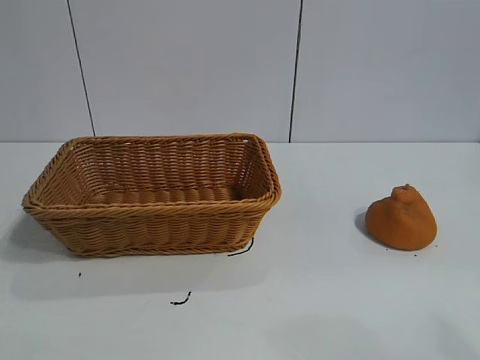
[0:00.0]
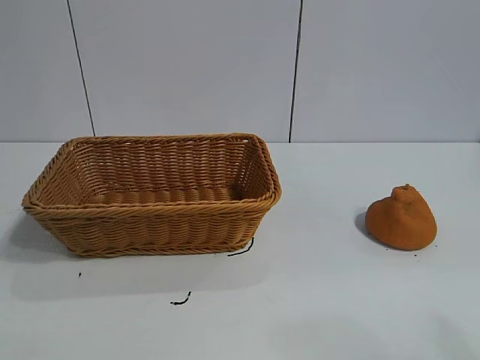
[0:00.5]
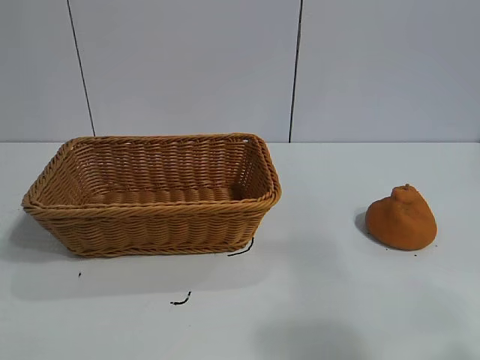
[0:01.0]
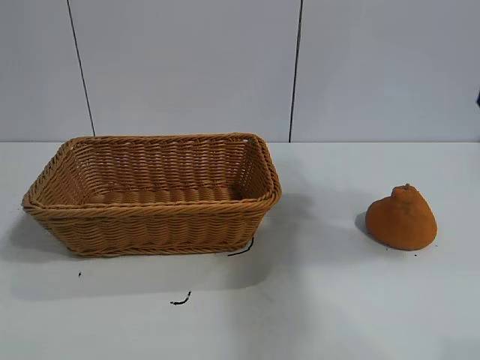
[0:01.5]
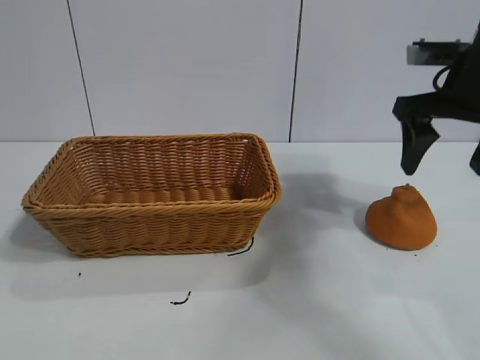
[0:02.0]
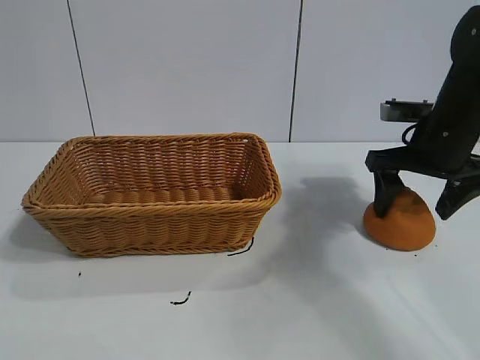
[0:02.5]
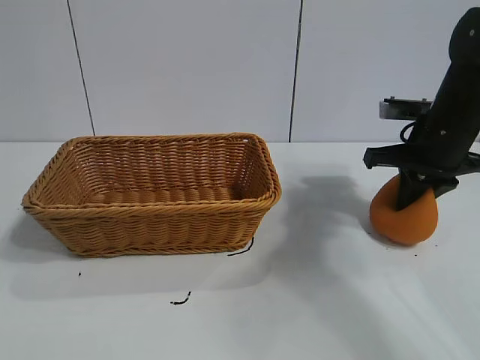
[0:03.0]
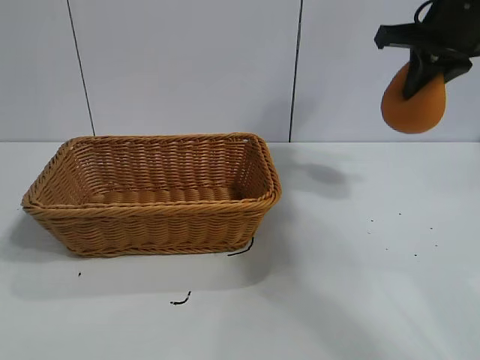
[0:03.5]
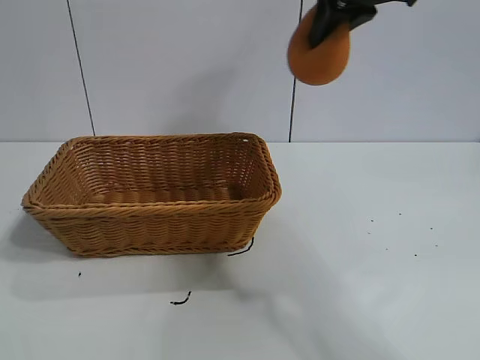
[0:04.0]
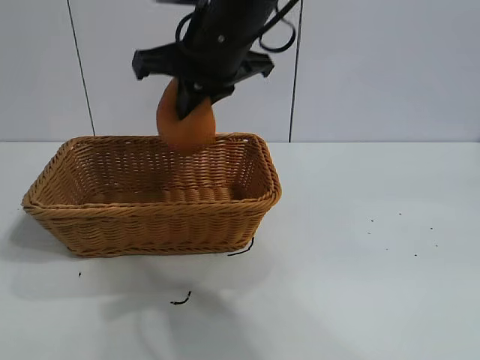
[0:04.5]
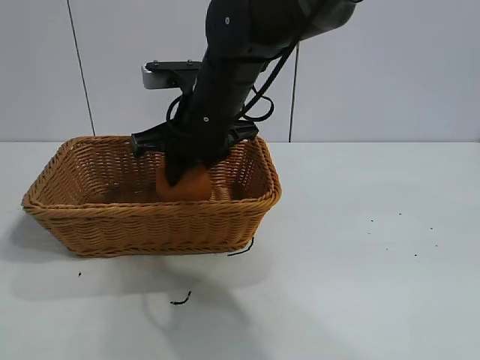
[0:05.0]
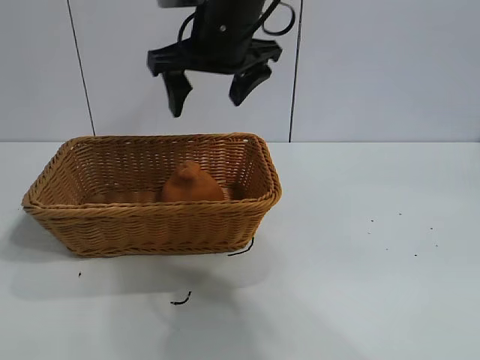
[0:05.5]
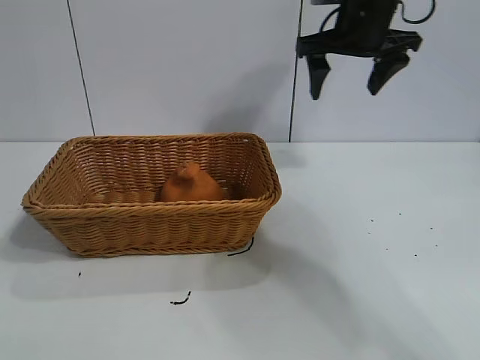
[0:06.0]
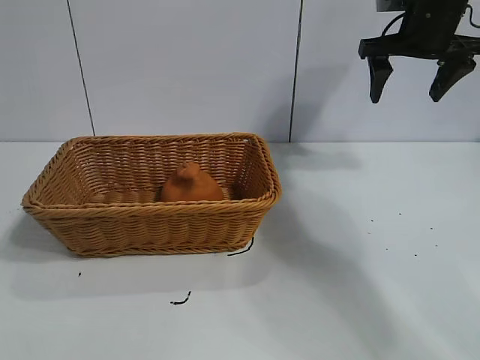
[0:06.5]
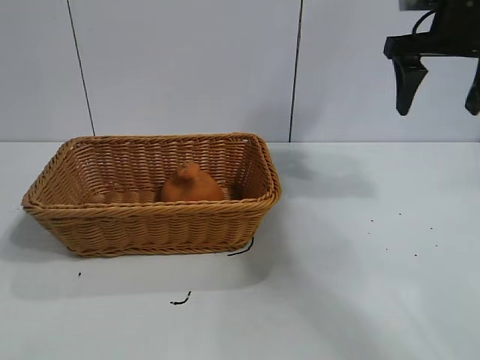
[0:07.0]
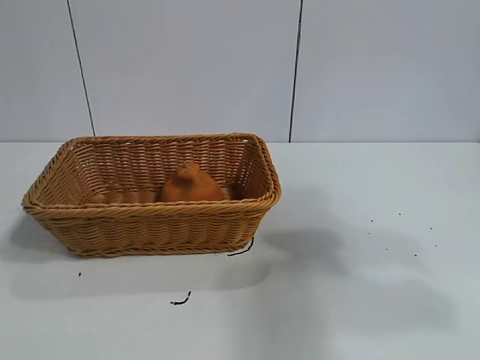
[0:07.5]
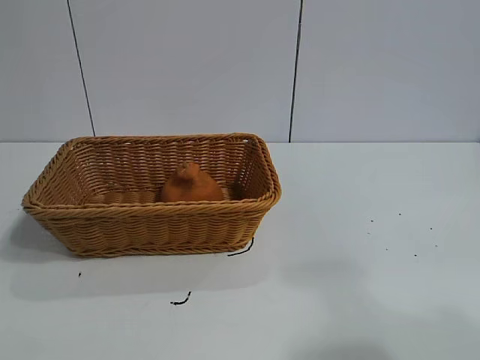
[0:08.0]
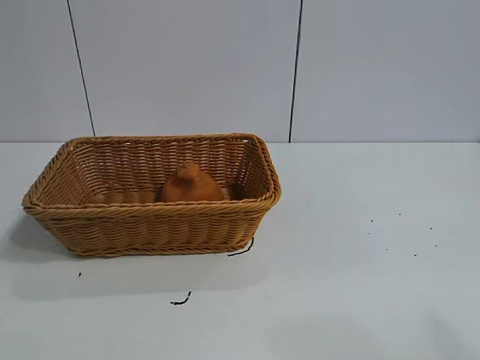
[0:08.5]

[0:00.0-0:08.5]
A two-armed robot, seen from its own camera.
Task of the whole recording: pick up the orange and put it into the basket.
Step, 0:01.0 to 0:03.0: Grasp the orange with right gripper.
Step, 0:03.5 to 0:05.0: Place the orange in the basket with right gripper.

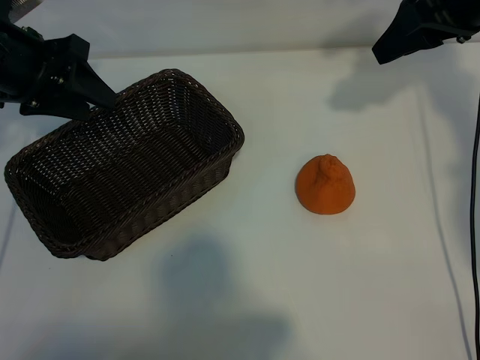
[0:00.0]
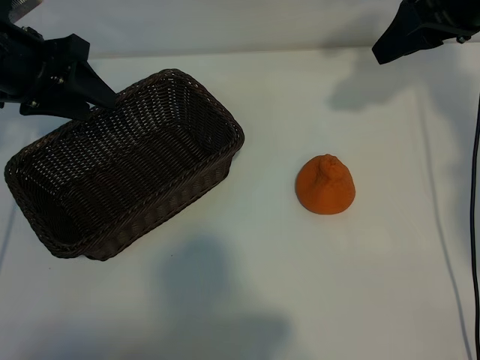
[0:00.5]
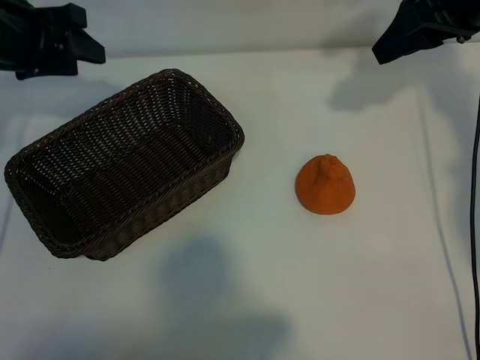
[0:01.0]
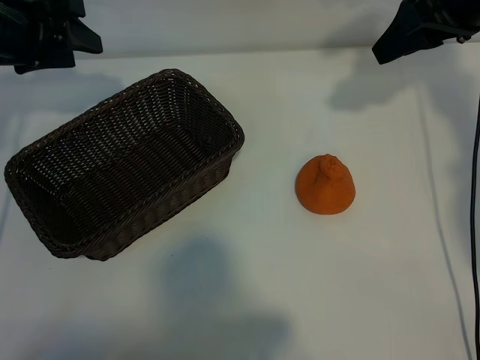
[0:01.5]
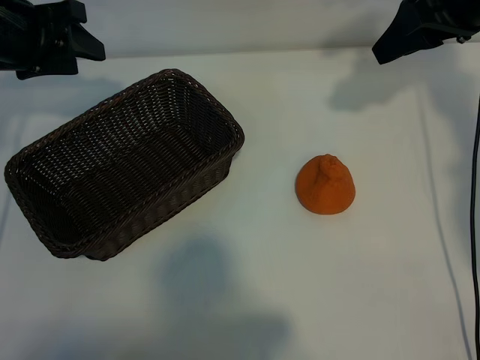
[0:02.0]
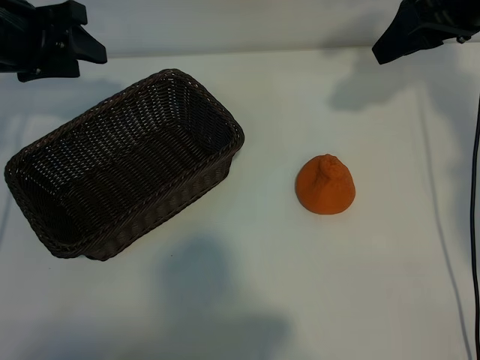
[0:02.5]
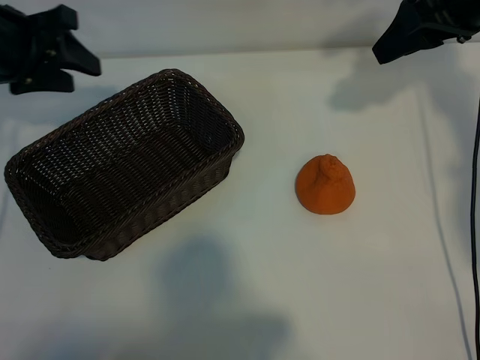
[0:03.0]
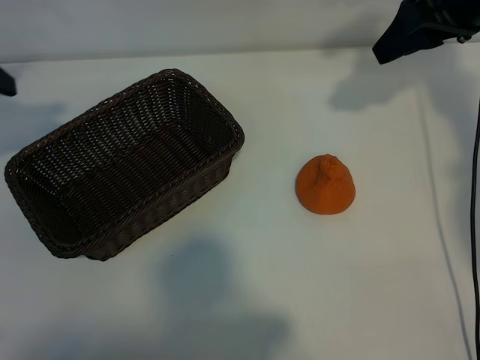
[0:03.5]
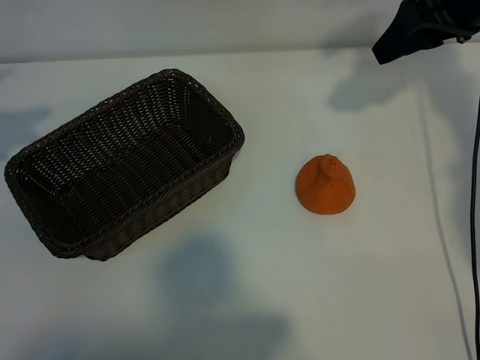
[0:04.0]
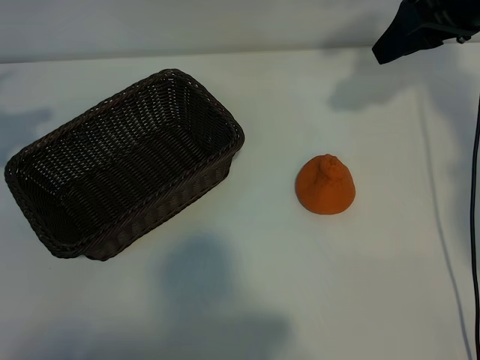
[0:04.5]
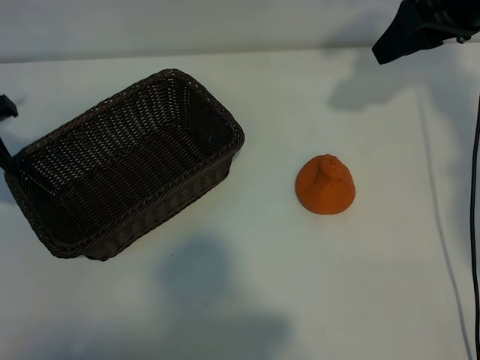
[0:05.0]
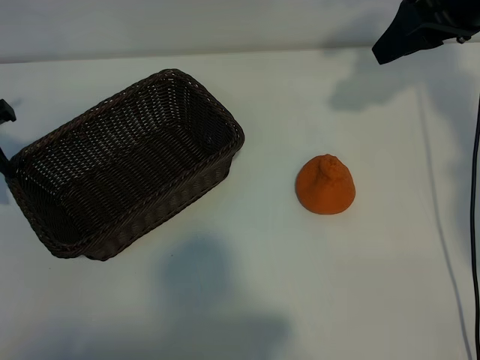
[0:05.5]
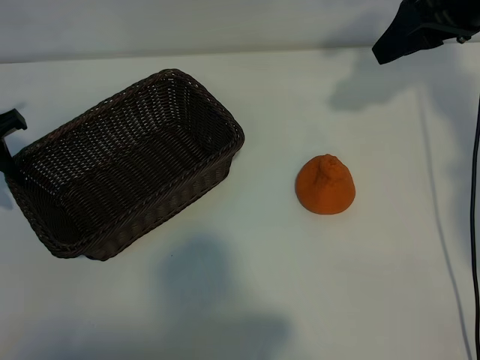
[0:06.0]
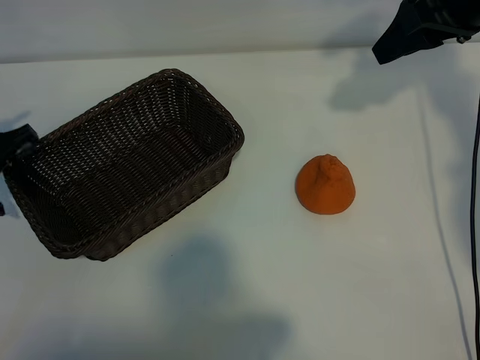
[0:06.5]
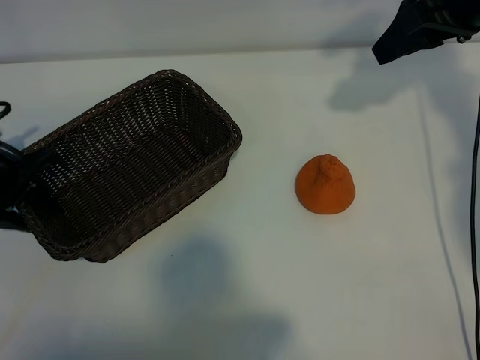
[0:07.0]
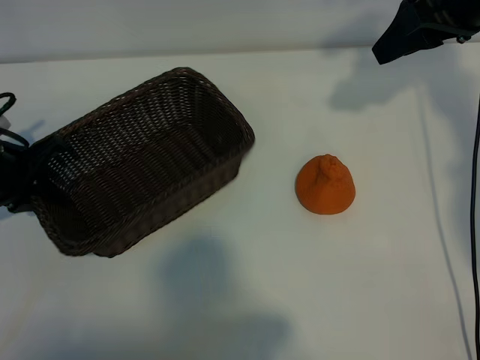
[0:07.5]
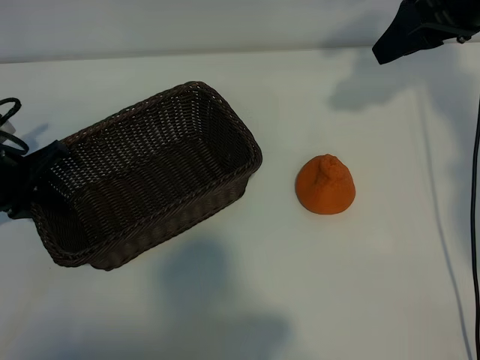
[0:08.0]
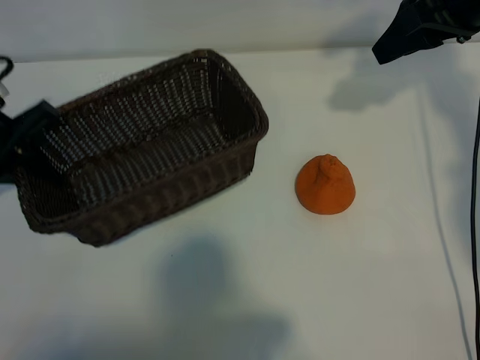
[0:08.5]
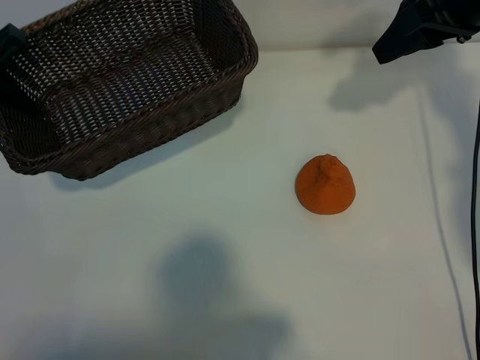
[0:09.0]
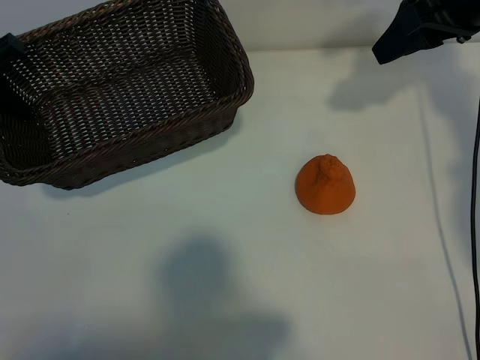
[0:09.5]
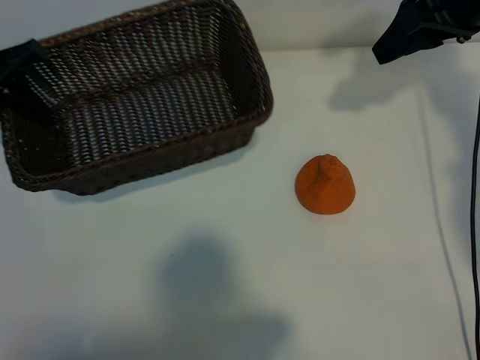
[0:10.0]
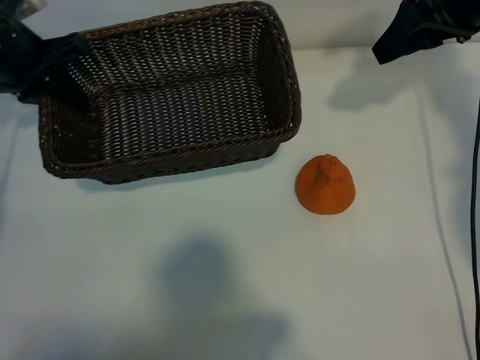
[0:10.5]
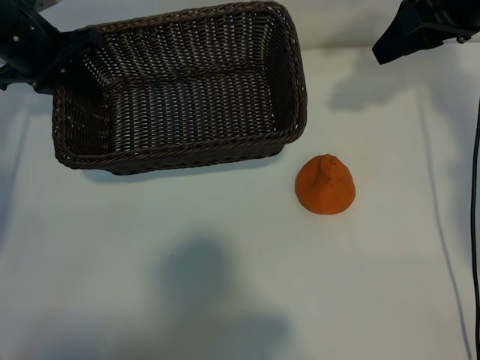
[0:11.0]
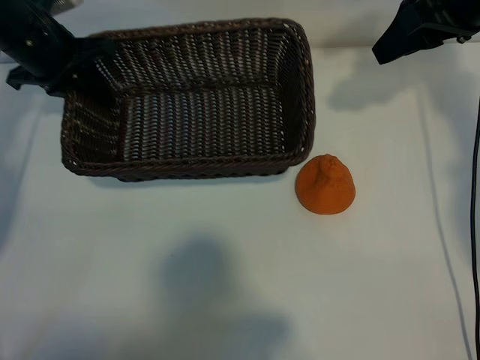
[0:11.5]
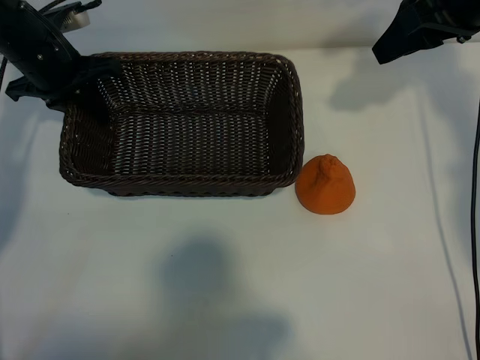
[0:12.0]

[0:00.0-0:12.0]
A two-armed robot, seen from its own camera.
Task of the whole recording: pick up the orange and put it into the basket.
Step, 0:01.0 to 0:07.5: Grasp the basket with left gripper.

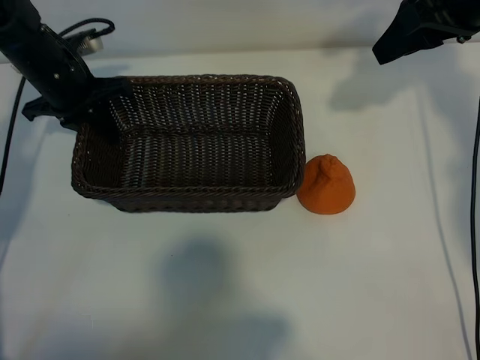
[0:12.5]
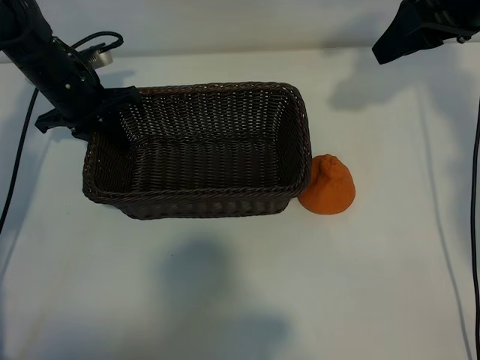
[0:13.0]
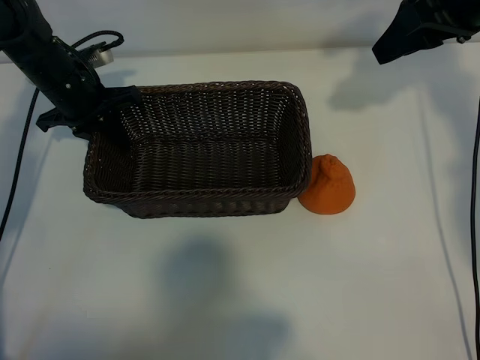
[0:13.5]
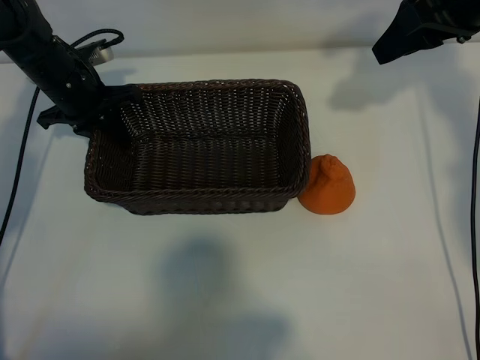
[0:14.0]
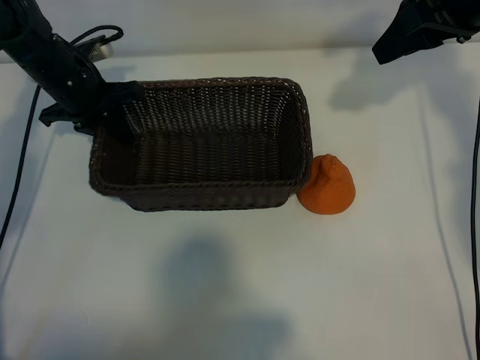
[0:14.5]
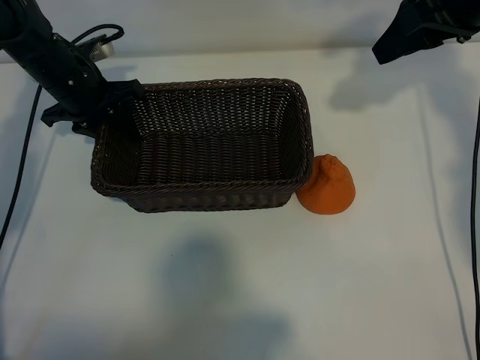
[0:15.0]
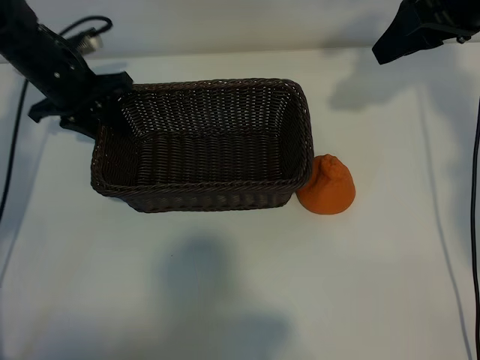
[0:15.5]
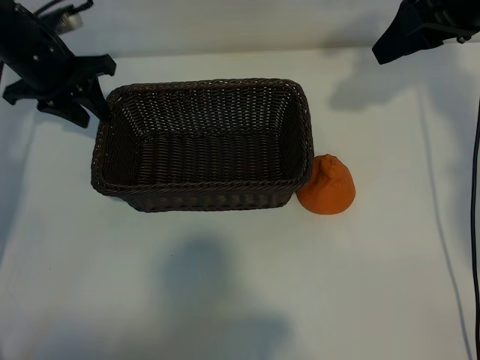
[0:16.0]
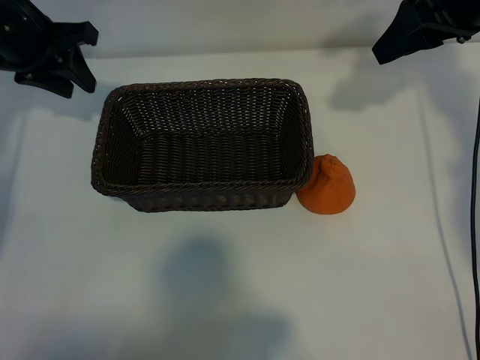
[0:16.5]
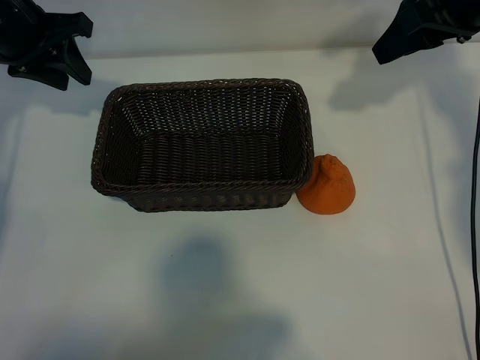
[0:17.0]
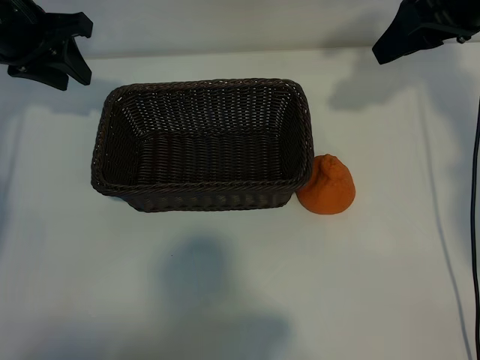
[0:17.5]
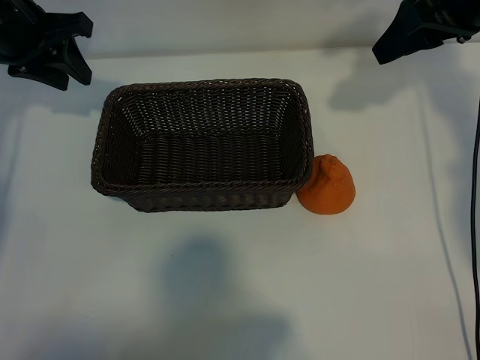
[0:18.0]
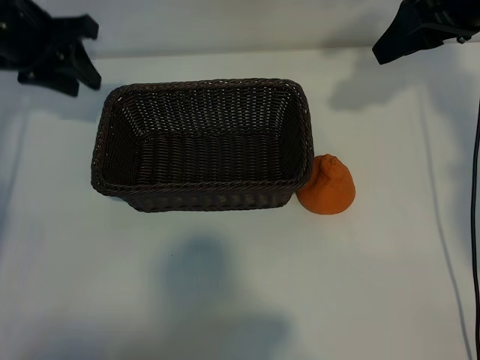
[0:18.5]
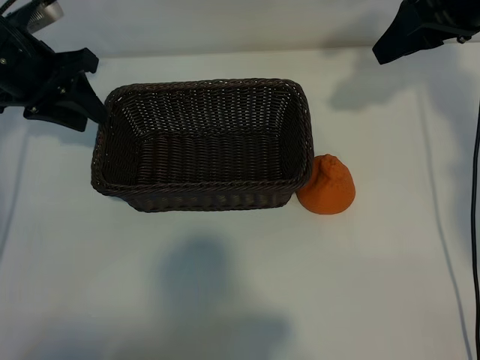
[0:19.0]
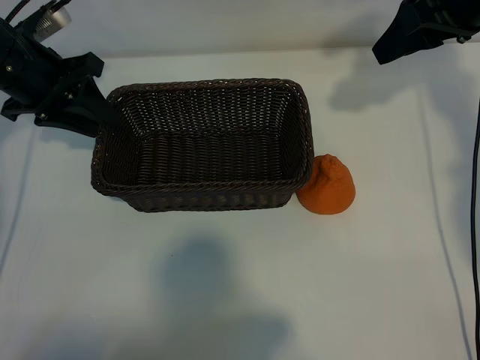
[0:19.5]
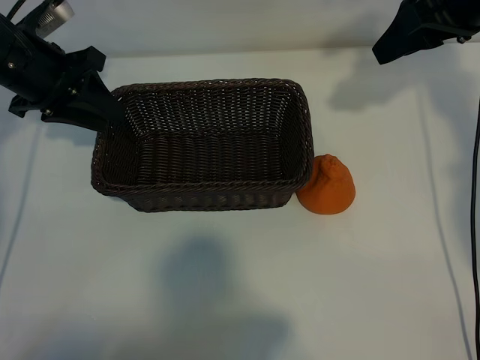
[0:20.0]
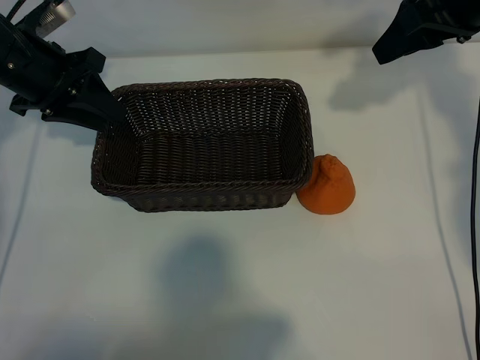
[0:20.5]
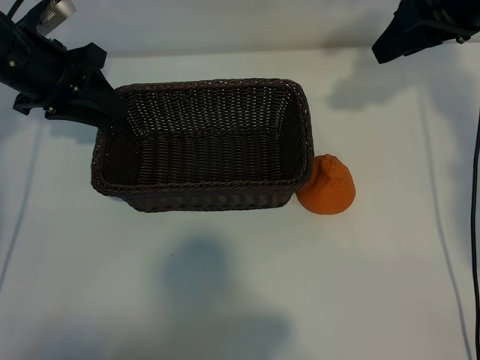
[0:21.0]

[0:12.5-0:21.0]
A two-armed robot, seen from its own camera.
Task of the whole recording: pick up the orange and put it into the basket.
Step, 0:12.5 to 0:14.5: Place the basket in the center of view with left gripper.
